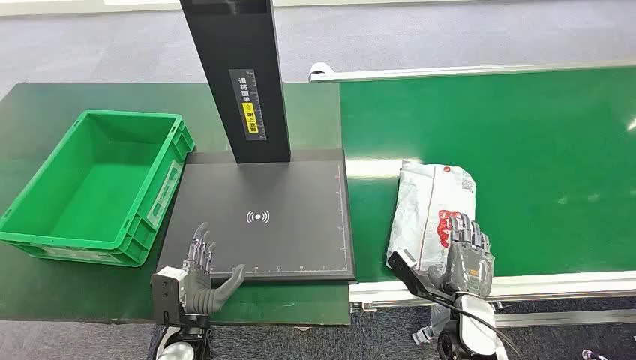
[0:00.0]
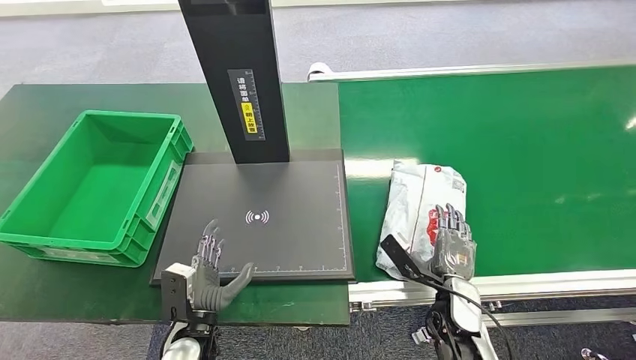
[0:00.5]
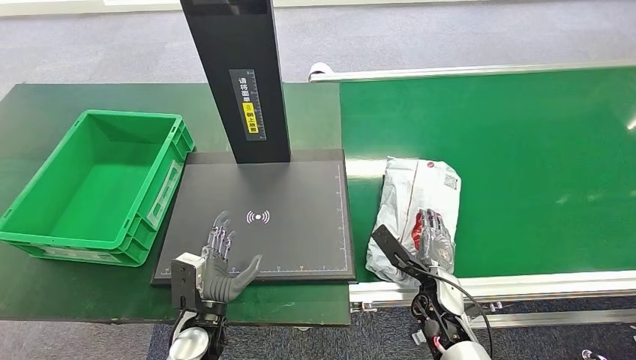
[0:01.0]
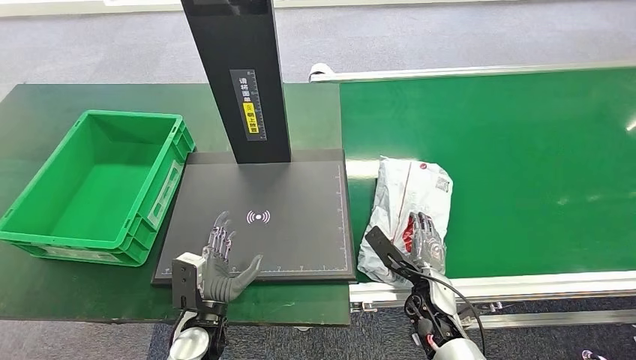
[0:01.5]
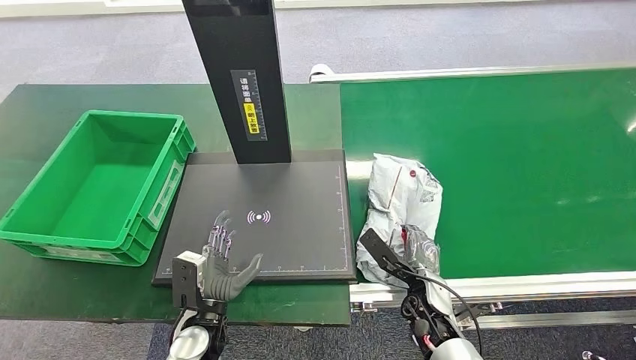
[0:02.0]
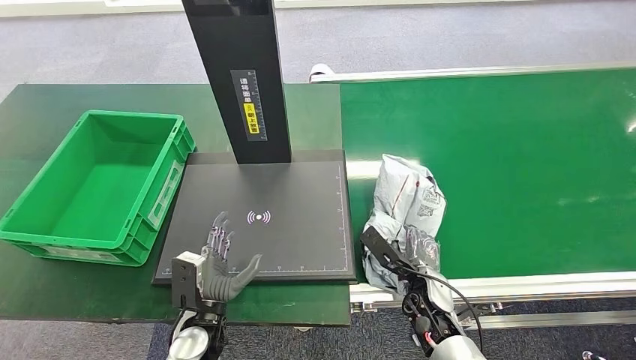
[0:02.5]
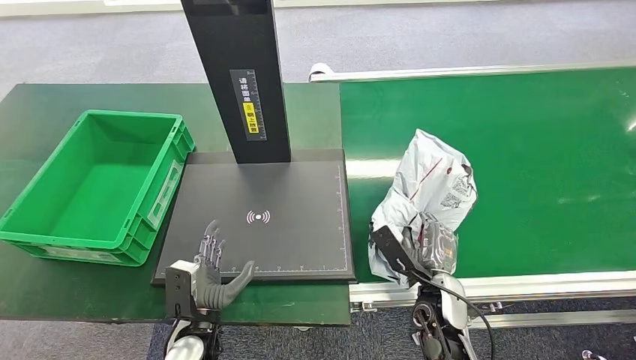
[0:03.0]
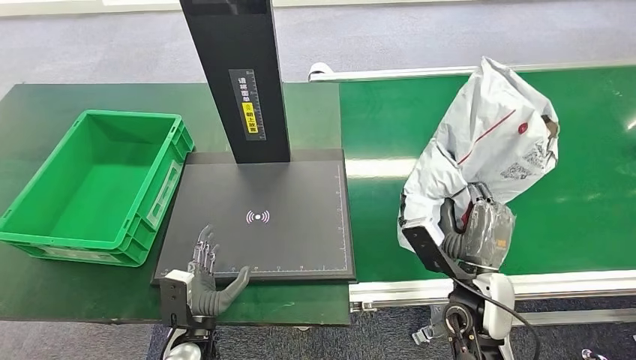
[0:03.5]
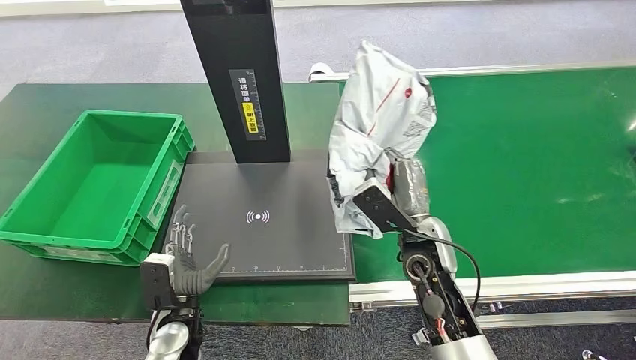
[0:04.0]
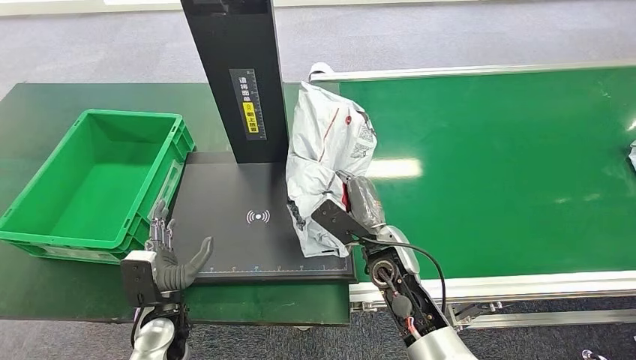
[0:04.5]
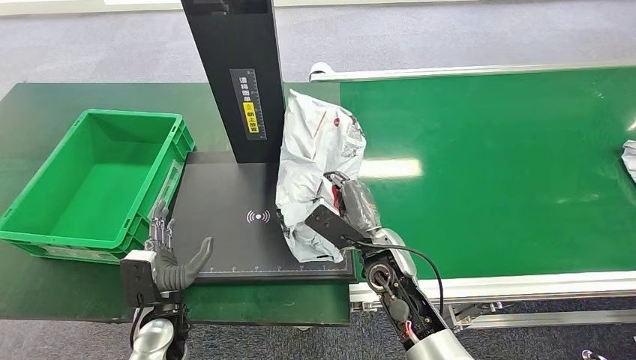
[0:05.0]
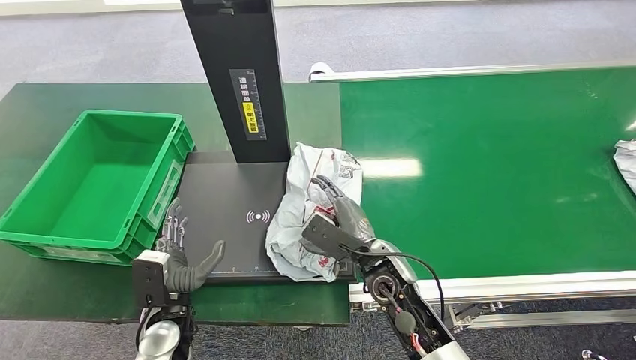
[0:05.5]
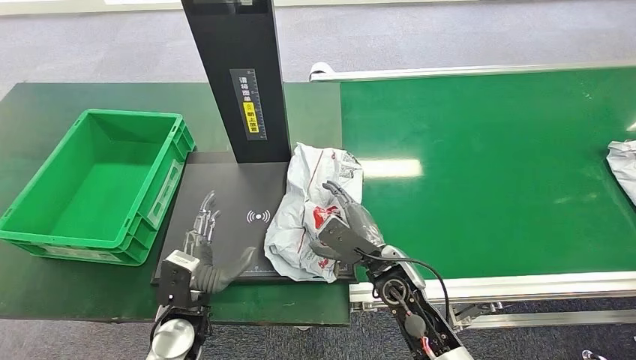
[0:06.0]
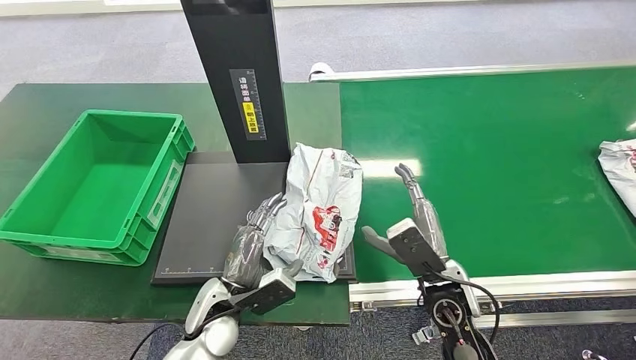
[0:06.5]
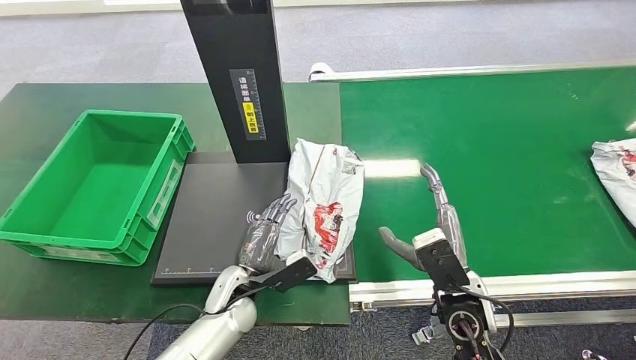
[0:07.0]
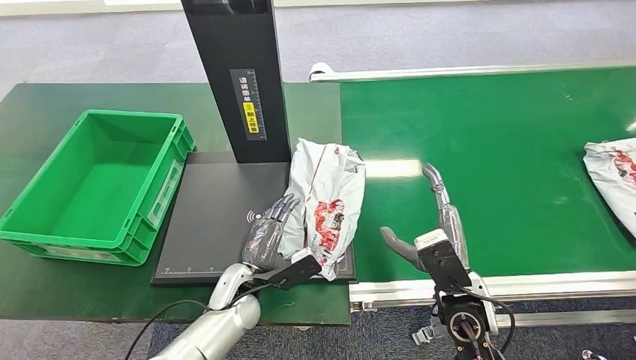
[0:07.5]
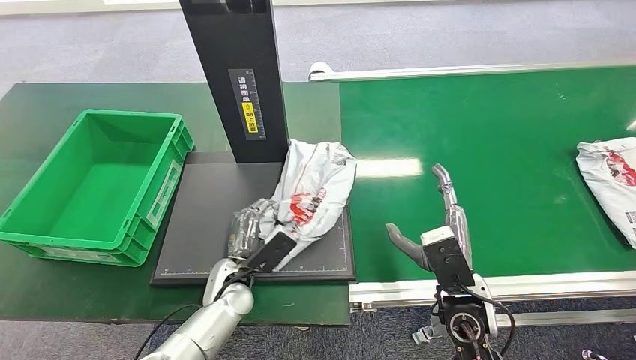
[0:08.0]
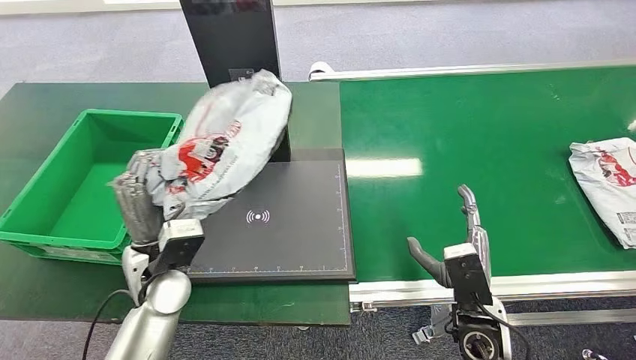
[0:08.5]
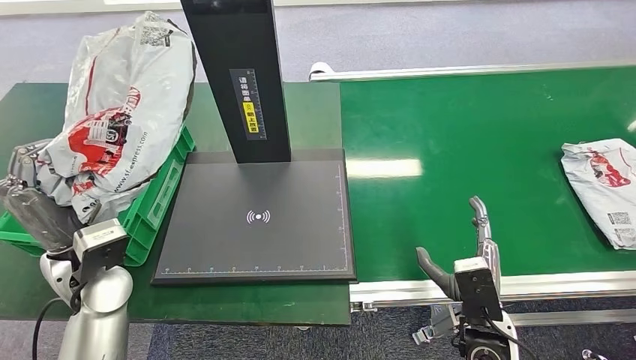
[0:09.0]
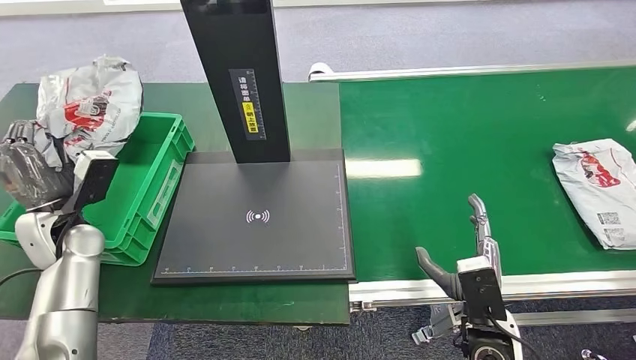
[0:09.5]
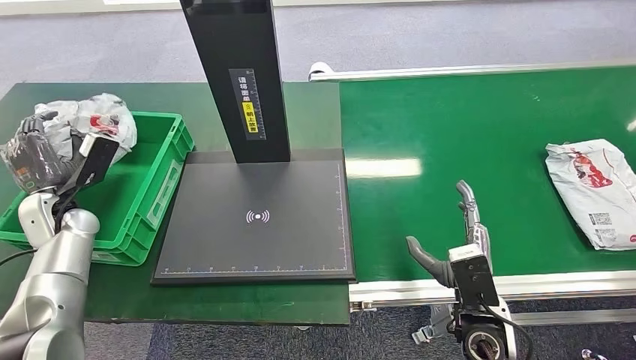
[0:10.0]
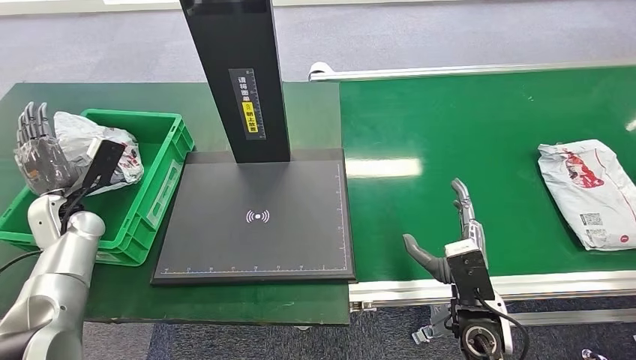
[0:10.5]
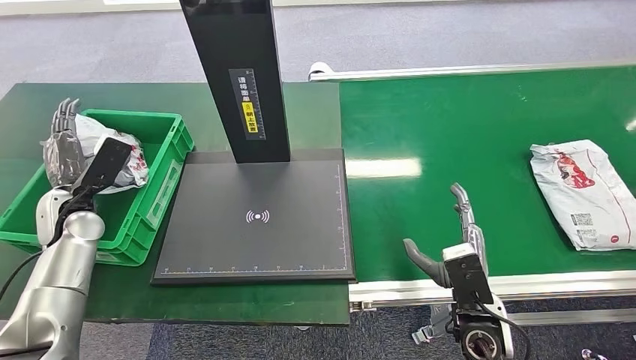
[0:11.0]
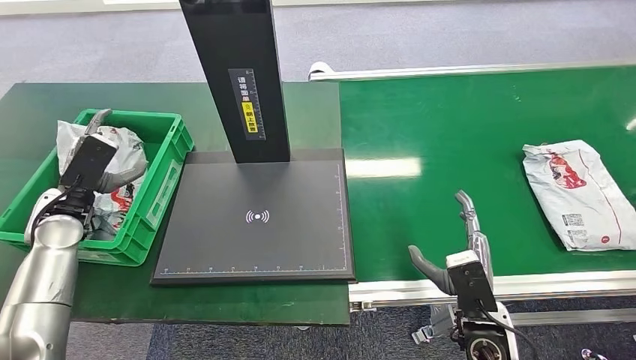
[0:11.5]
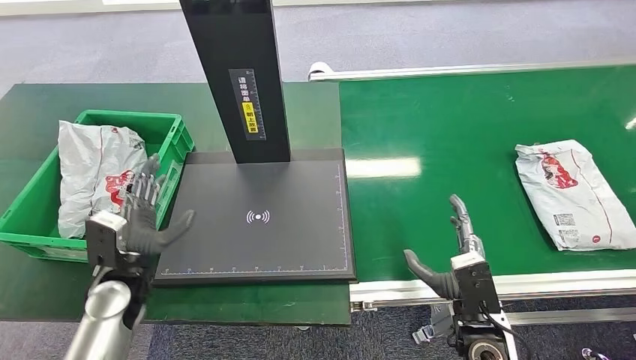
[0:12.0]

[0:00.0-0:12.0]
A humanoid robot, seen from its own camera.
Step, 0:00.0 to 0:03.0: Pick up the package from the conveyor belt.
Step, 0:04.0 to 0:06.0: Place the package onto the inbound machine.
Step, 0:07.0 to 0:08.5: Pick up the package from the inbound machine.
Step, 0:09.0 to 0:12.0: Place the package into the parcel locker.
0:02.0 to 0:04.0: The right hand is displaced upward by about 15 cm.
0:04.0 to 0:06.0: The right hand shifts some 5 cm downward.
0:06.0 to 0:08.0: The right hand heads to the right, covering approximately 10 cm, while the left hand heads forward, covering approximately 5 cm.
0:10.0 to 0:12.0: The left hand heads to the right, backward and downward, covering approximately 20 cm.

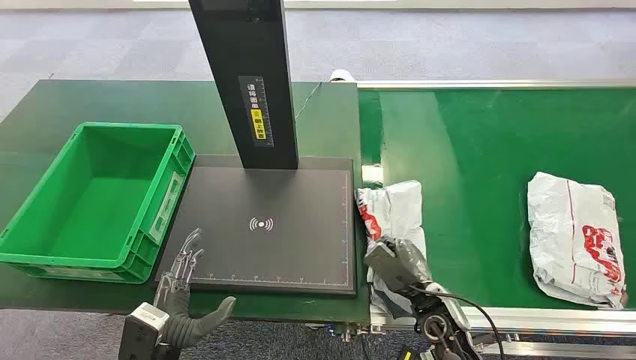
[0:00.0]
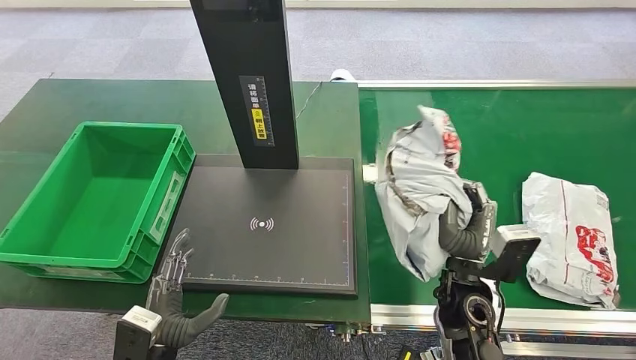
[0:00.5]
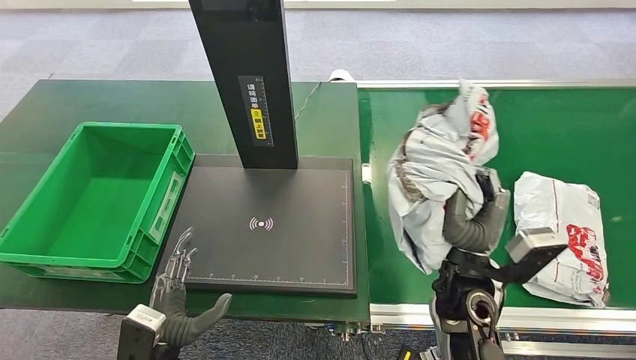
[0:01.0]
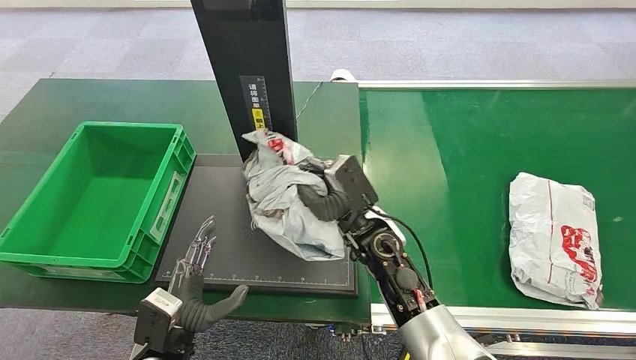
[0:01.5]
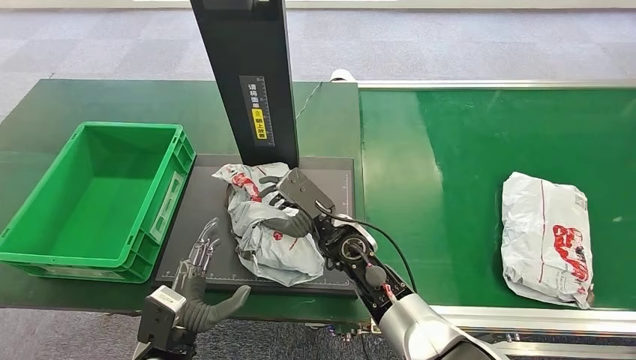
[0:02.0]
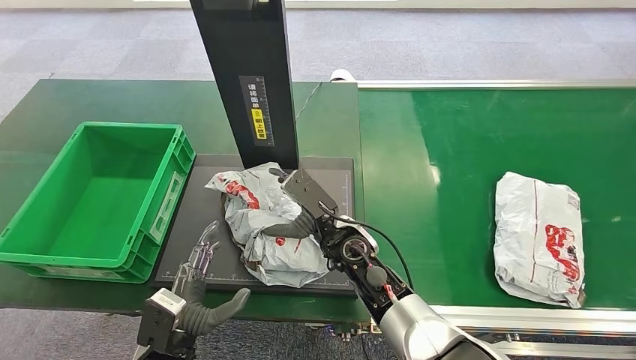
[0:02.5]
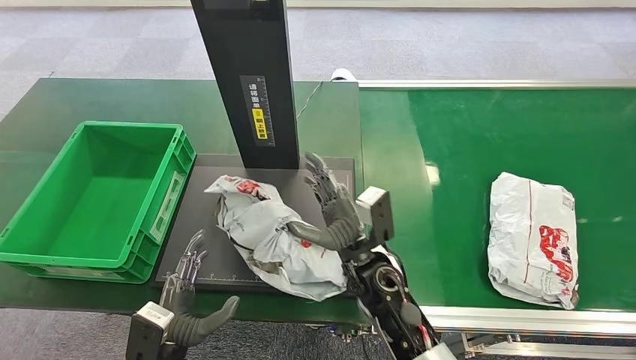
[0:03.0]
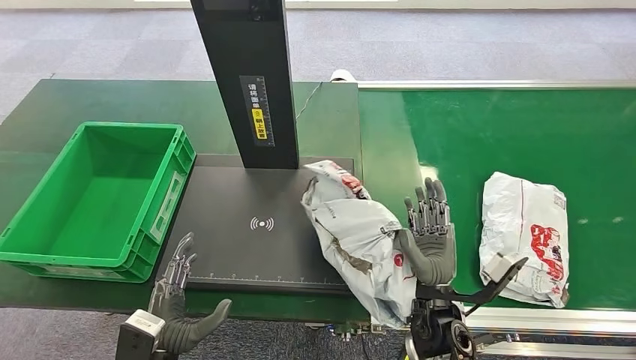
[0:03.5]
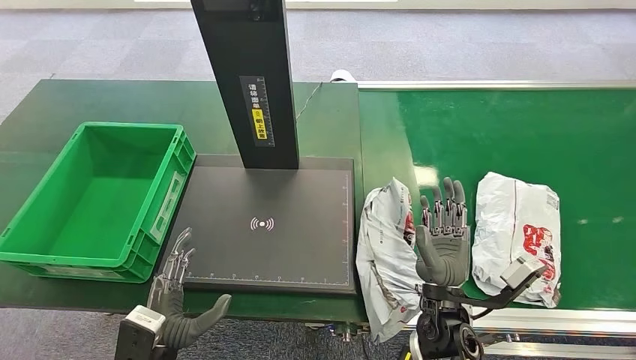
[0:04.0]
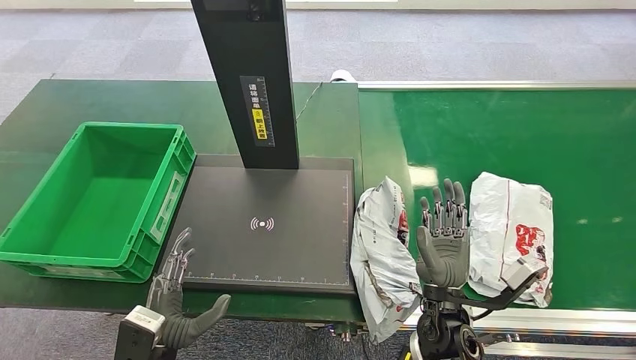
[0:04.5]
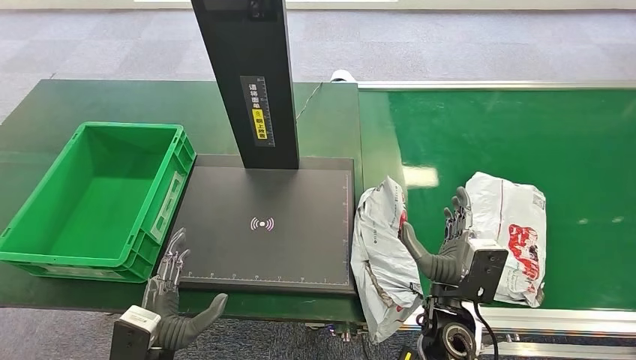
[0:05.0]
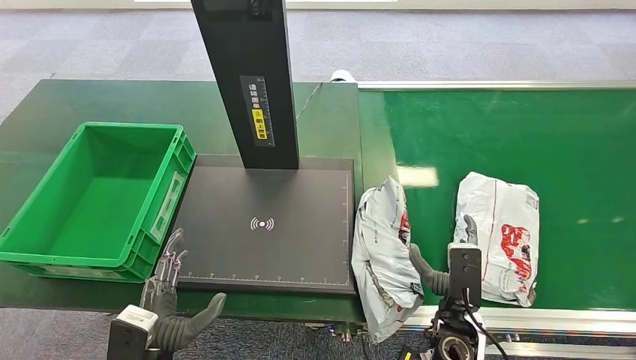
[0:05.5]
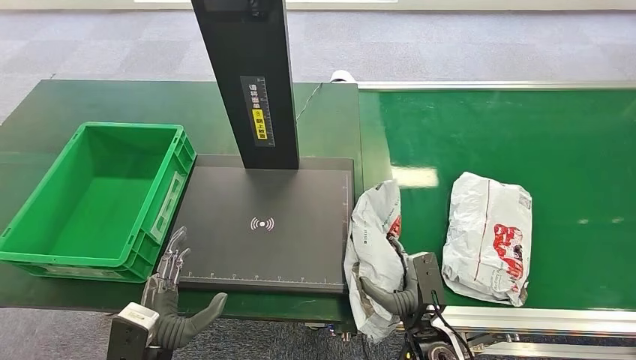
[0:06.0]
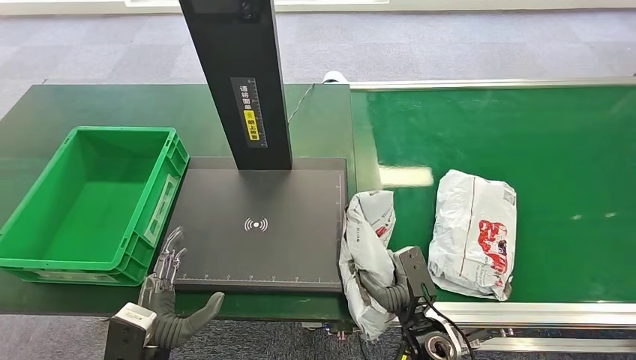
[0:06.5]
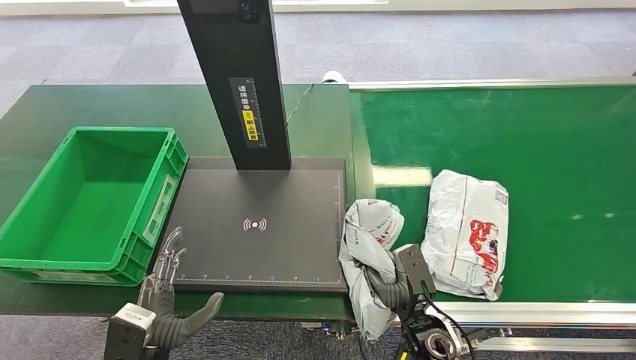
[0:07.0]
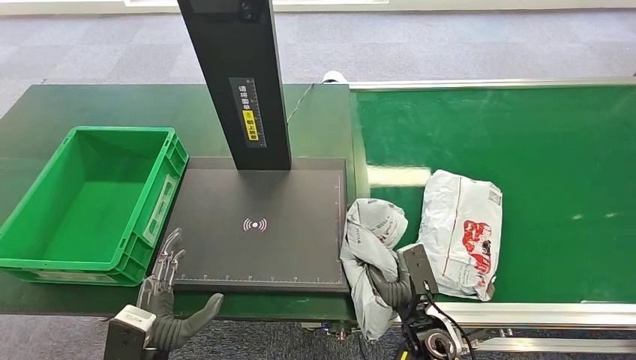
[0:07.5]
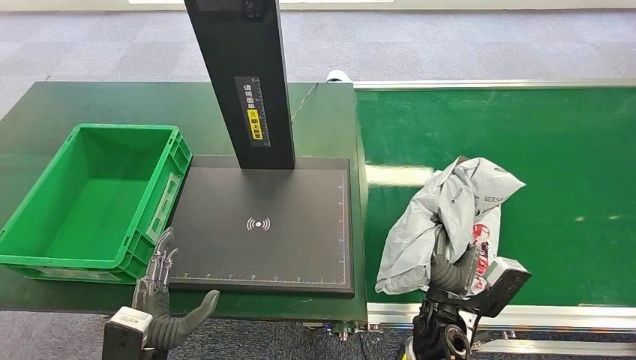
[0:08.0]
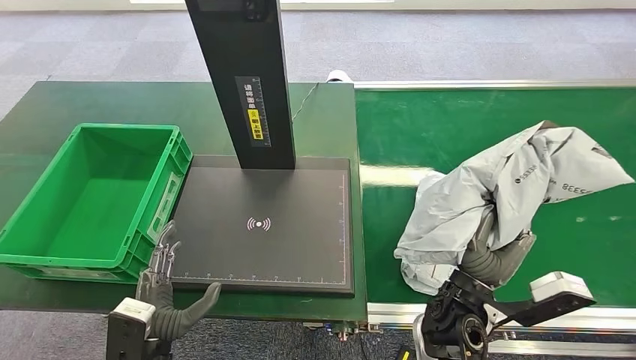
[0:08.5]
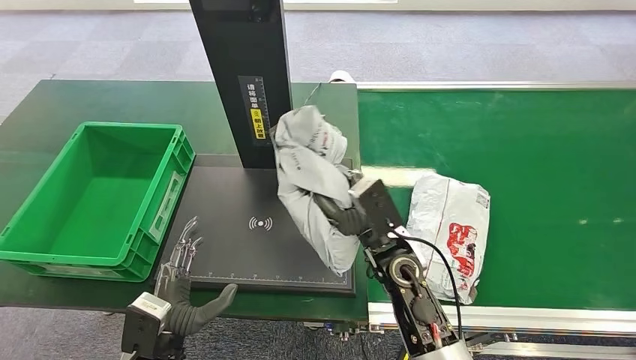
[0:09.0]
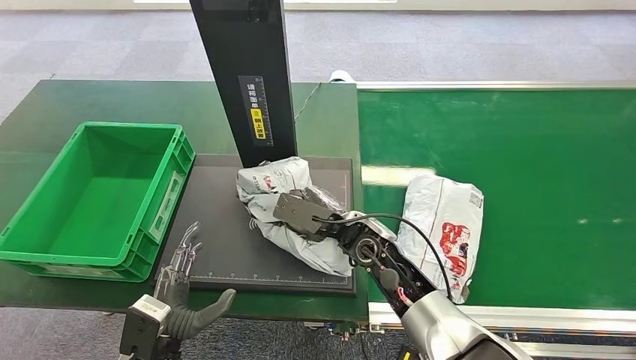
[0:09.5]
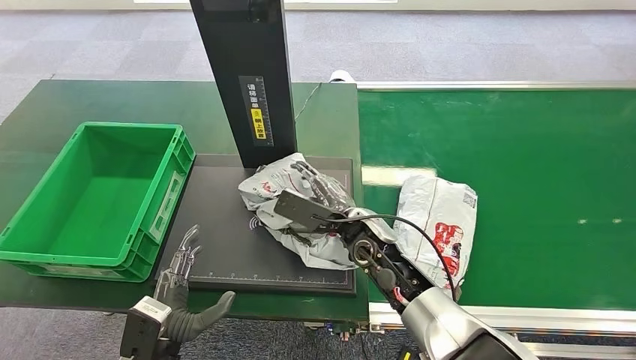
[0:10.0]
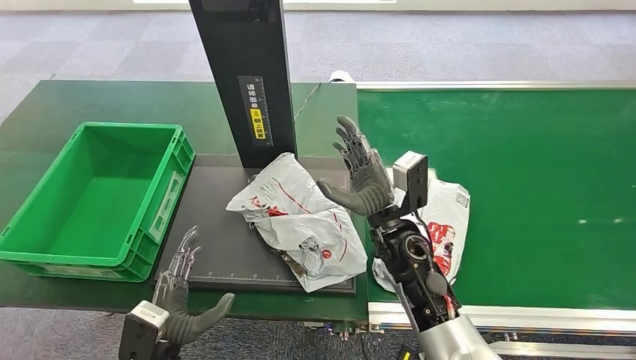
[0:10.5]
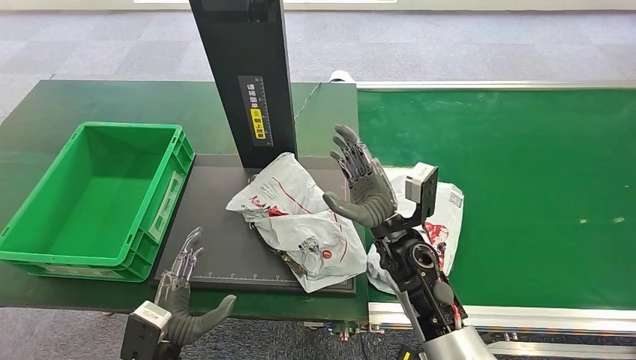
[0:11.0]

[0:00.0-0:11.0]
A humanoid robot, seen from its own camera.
0:02.0 to 0:03.5: The right hand heads to the right and backward, covering approximately 15 cm.
0:03.5 to 0:05.5: The right hand shifts by some 5 cm.
